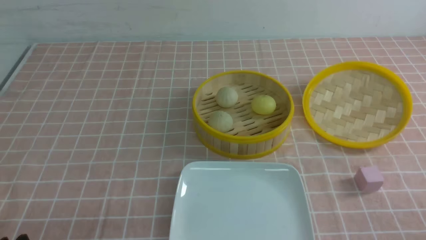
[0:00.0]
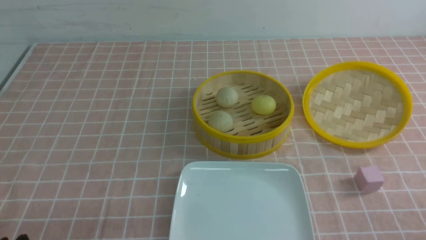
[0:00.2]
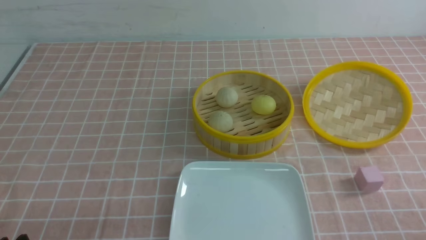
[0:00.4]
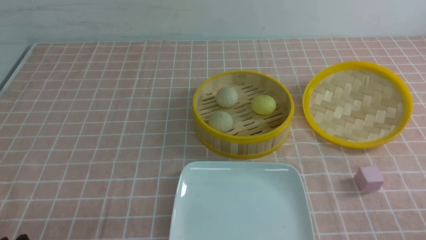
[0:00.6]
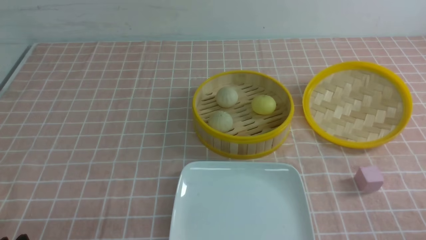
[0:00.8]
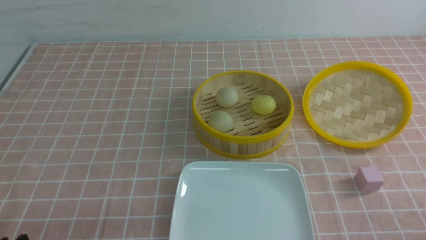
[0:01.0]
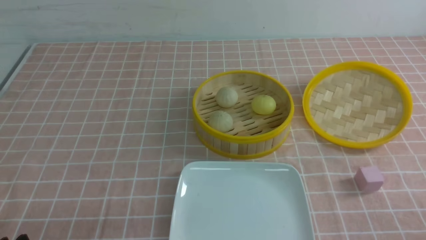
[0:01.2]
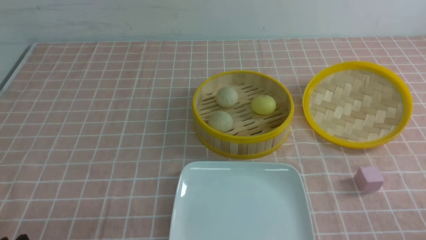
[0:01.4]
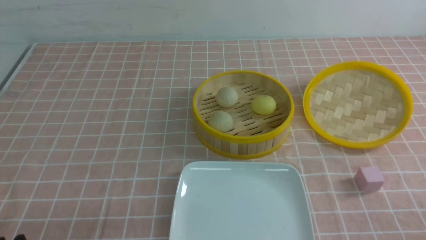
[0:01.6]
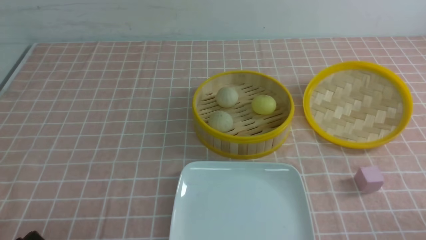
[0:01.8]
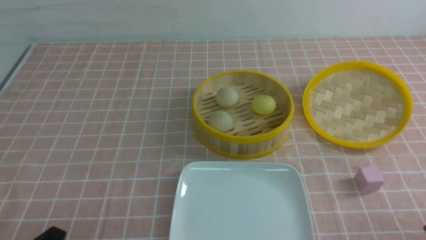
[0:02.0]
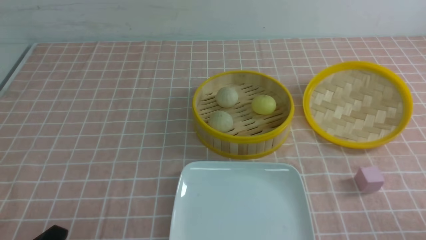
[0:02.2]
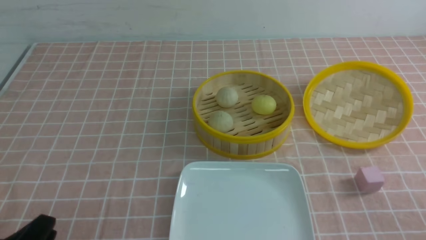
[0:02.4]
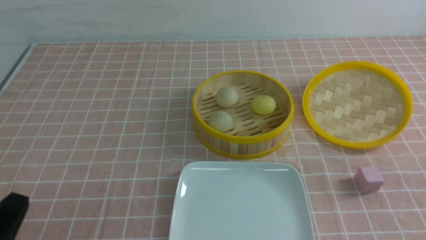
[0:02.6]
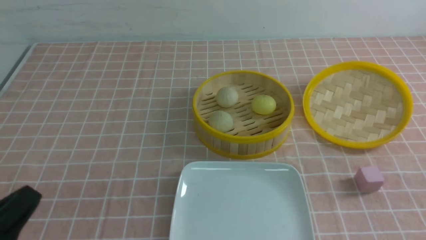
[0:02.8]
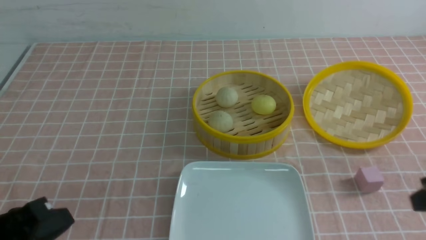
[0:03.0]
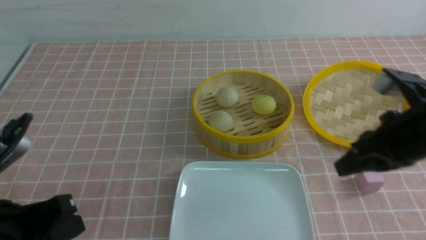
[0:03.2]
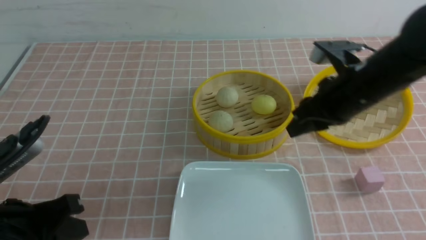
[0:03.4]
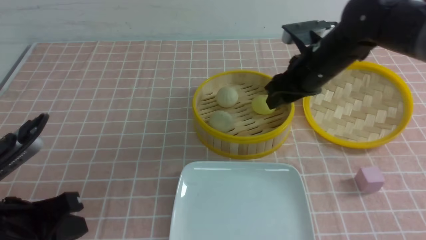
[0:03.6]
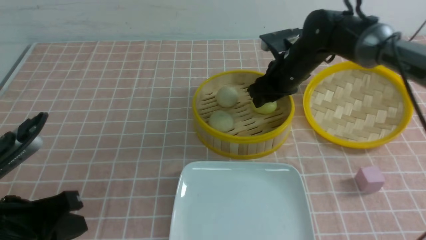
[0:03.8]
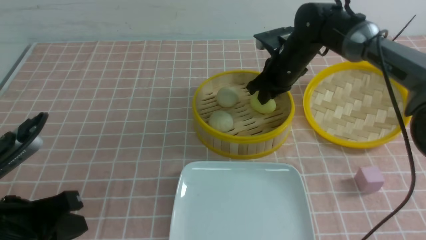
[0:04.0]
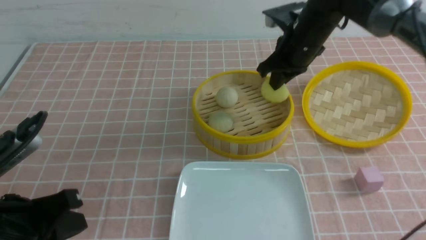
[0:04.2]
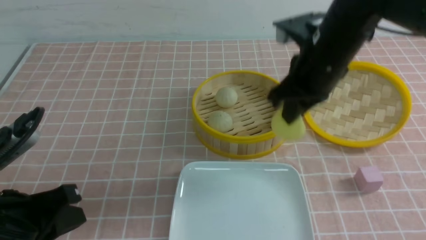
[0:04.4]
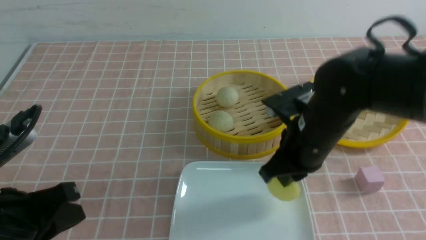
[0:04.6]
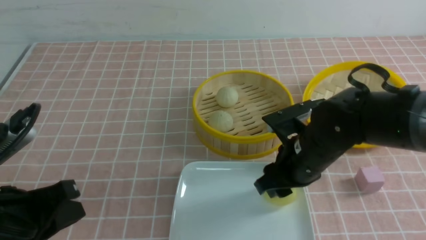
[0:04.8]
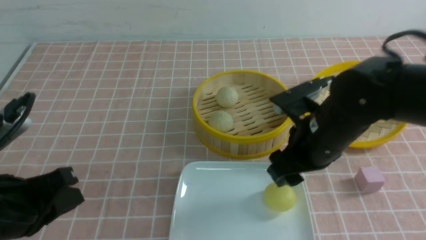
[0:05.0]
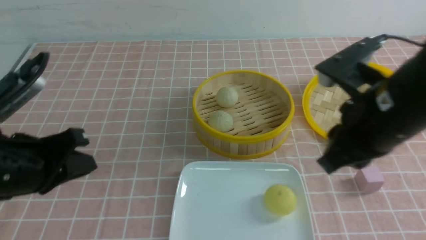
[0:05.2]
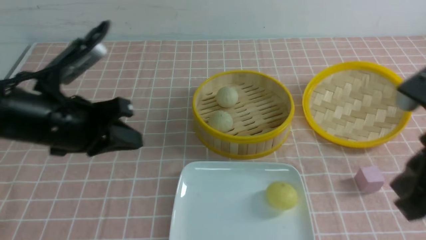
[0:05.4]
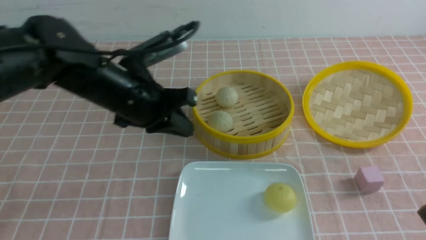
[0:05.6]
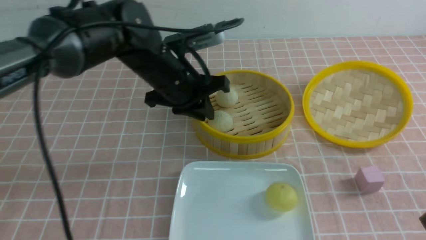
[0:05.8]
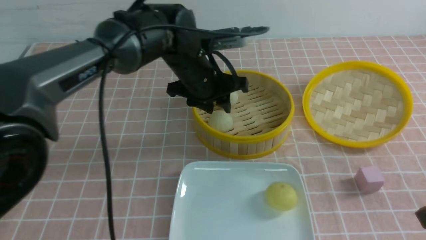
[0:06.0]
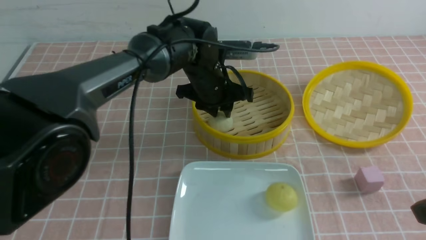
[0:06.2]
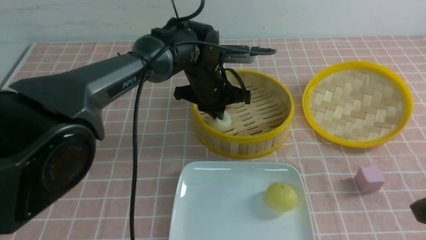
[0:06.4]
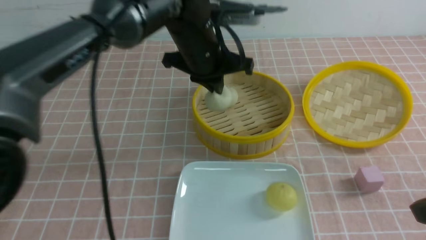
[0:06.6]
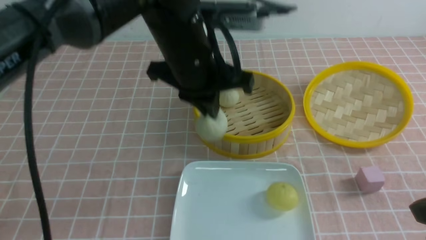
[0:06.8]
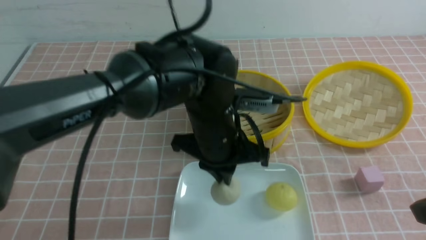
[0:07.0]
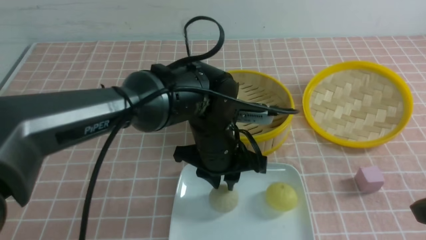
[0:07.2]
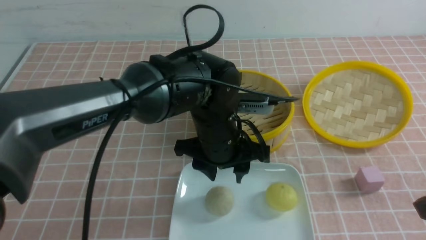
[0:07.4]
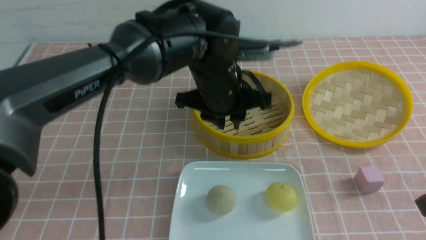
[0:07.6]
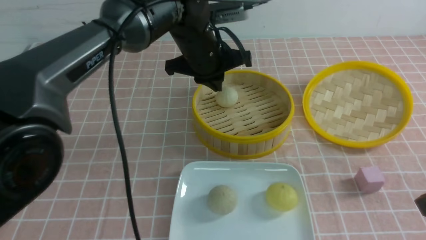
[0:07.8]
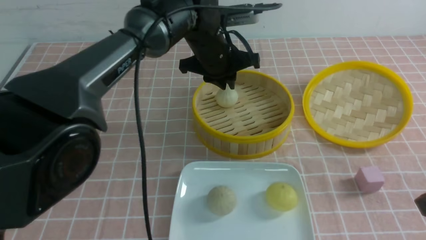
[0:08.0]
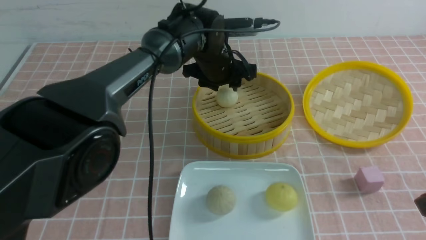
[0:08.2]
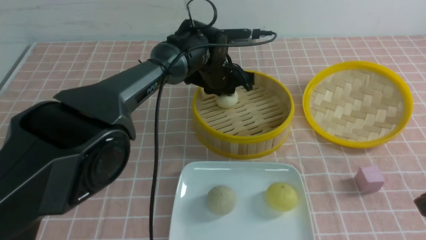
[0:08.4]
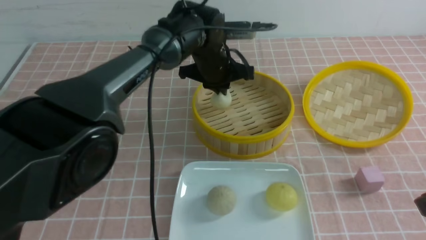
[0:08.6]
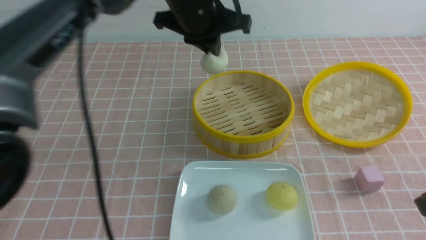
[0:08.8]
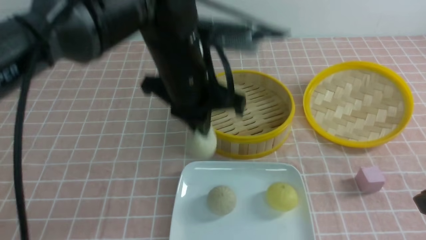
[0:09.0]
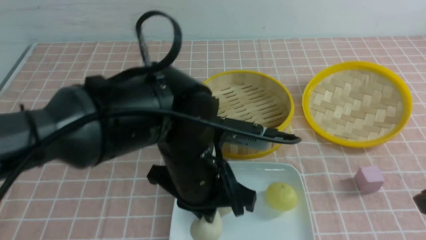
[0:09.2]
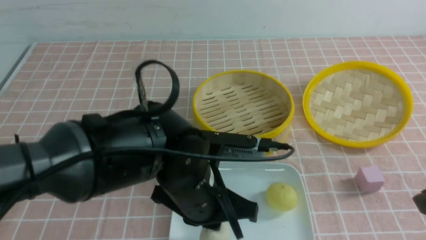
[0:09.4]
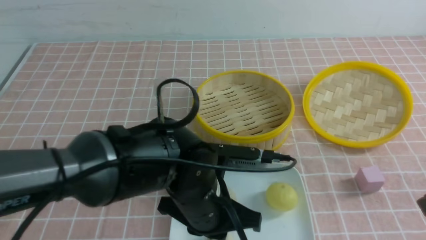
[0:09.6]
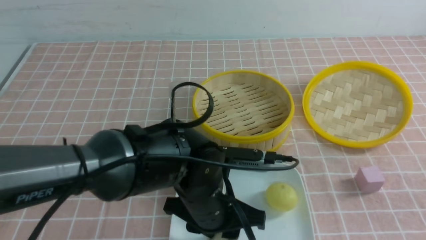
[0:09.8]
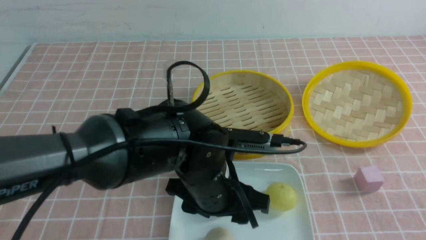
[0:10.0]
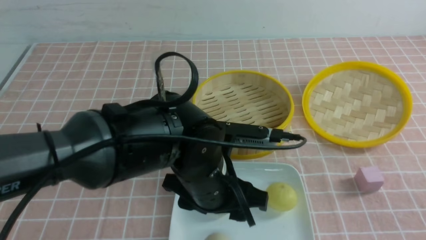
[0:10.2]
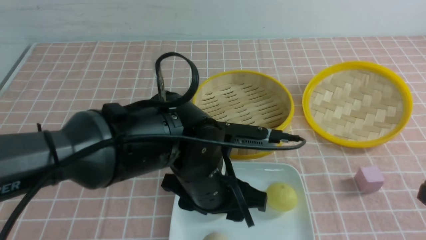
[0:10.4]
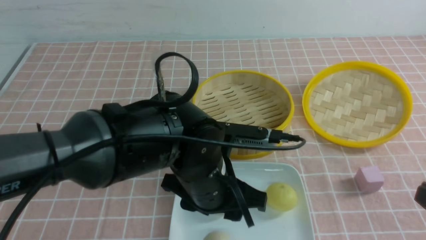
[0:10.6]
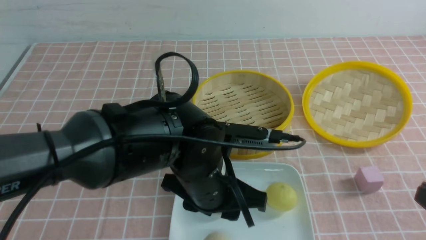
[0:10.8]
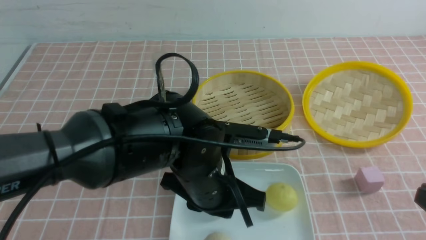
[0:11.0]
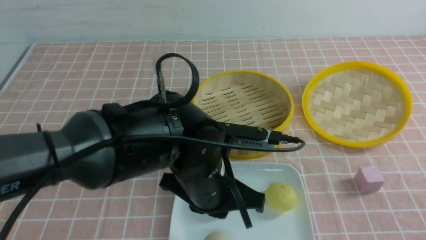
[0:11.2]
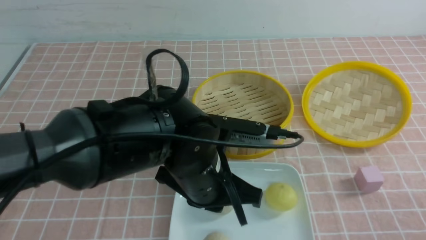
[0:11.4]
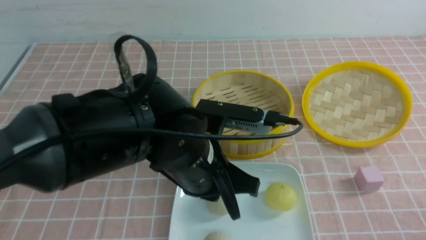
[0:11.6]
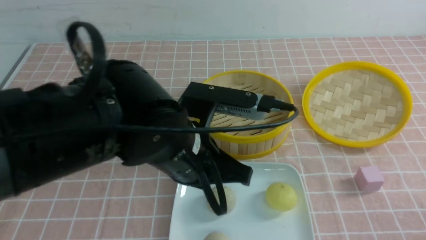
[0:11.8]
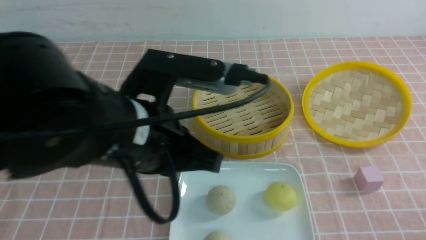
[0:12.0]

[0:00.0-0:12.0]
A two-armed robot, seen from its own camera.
Step, 0.0 to 3.8 s: use the right arm to grab the steamed stuffed bun that is closest to it.
Step, 4.2 to 5.0 s: use the right arm to put the steamed stuffed bun into the plate.
Step, 5.2 to 6.4 s: use the left arm to grab the steamed stuffed bun that is closest to it.
Step, 6.6 to 7.2 s: use the left arm to put the steamed stuffed bun into the plate.
Step, 7.4 to 8.4 s: use the left arm to grab the steamed stuffed bun that is closest to it.
Step, 8.6 to 10.0 s: use the left arm to put the steamed stuffed bun into the plate.
1.6 to 3.0 s: The left gripper heads upward, covering approximately 10 cm, and closes its fingers.
3.0 to 4.4 s: The right gripper heads forward and to the left, covering about 25 cm, and opens and closes again.
4.4 to 6.0 s: The right gripper is displaced backward and to the right by some 25 cm, and opens and closes again, while the left gripper is displaced forward and to the right by roughly 35 cm, and opens.
6.0 to 7.6 s: The left gripper closes, then opens again.
7.6 to 9.0 s: The left gripper reaches about 10 cm forward, then returns, and closes.
9.0 to 10.4 s: The left gripper heads downward and backward, covering some 10 cm, and opens up. Meanwhile the right gripper heads backward, covering approximately 5 cm.
10.4 to 12.0 s: The left gripper goes some 15 cm upward and to the left, and closes; the right gripper travels downward by approximately 10 cm.

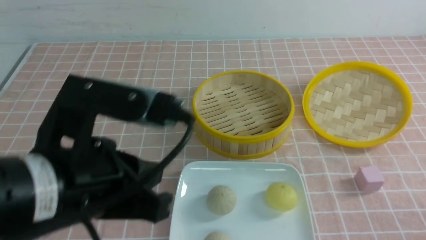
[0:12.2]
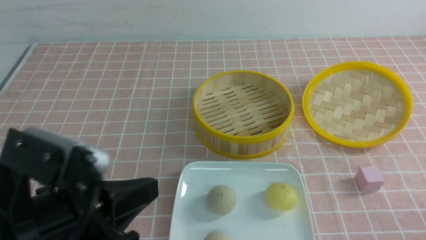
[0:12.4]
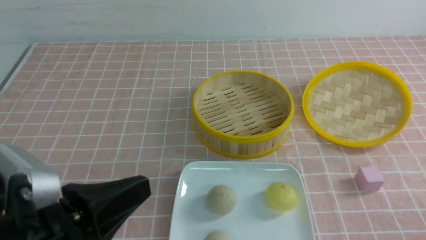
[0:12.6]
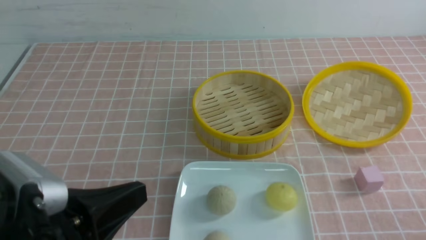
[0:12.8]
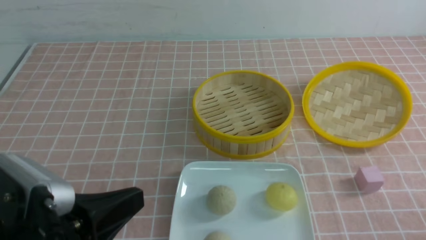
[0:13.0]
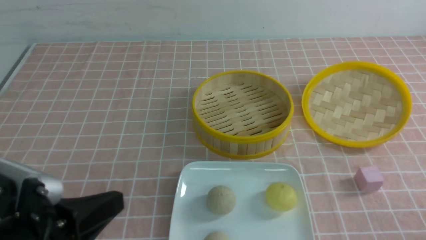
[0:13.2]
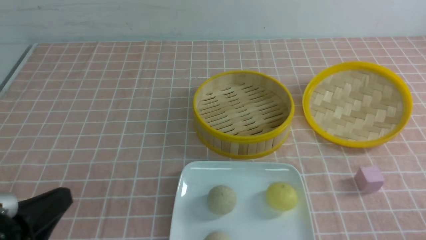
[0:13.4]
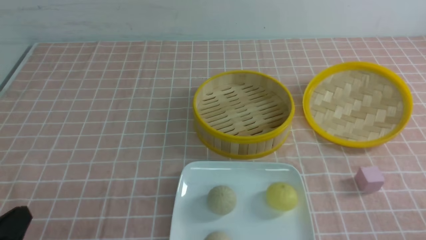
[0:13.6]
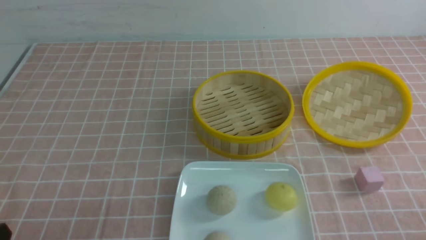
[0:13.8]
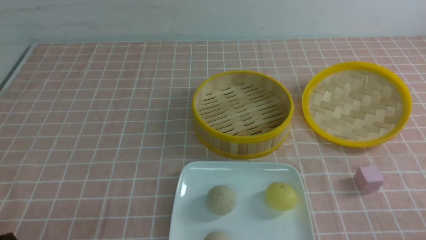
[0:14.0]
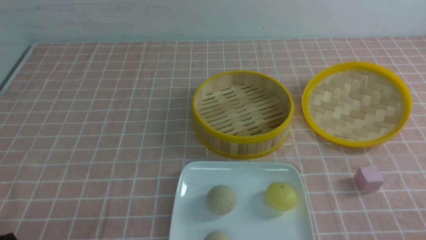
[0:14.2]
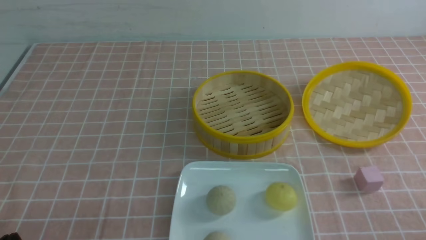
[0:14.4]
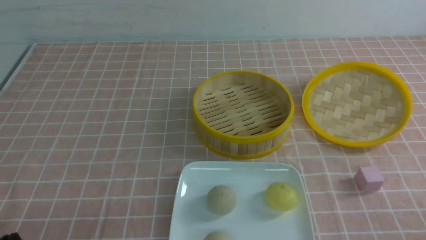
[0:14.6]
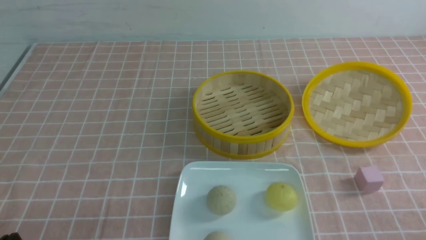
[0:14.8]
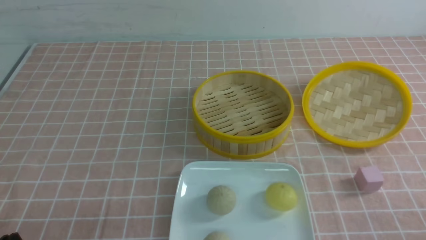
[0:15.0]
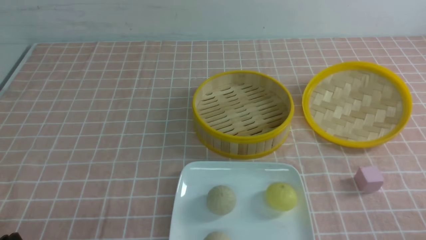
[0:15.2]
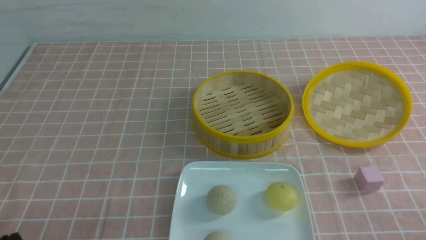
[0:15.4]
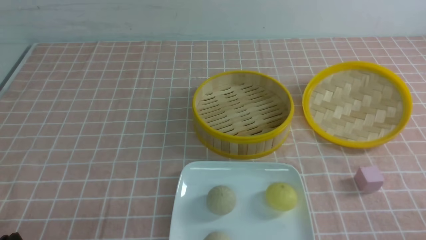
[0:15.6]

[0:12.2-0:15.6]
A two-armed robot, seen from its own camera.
12.2 to 13.8 s: The left gripper travels to the left, downward and backward by roughly 20 cm.

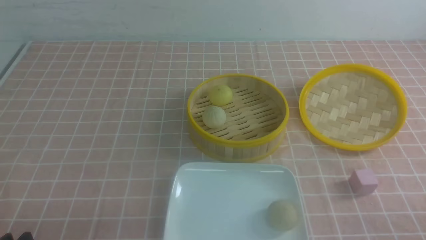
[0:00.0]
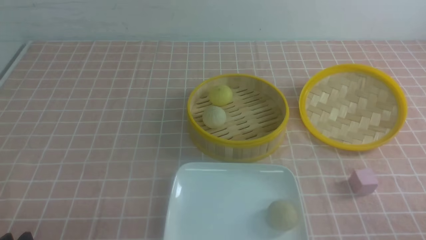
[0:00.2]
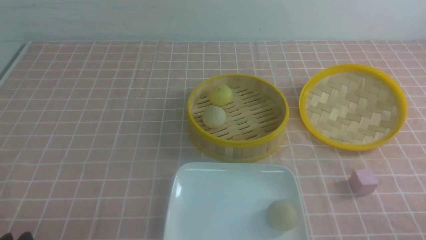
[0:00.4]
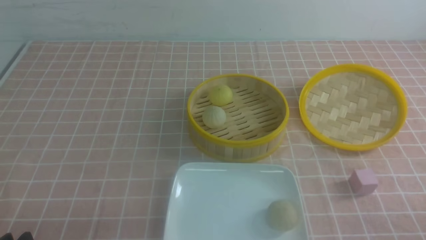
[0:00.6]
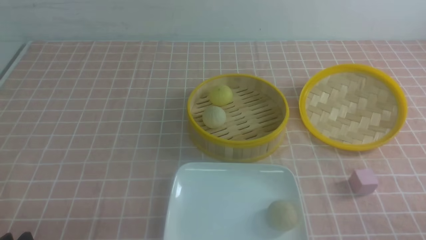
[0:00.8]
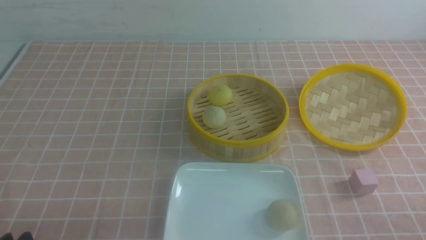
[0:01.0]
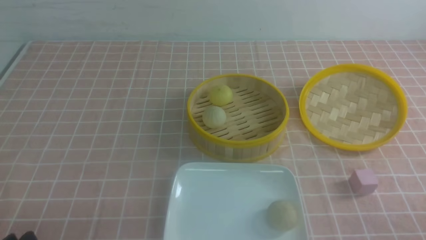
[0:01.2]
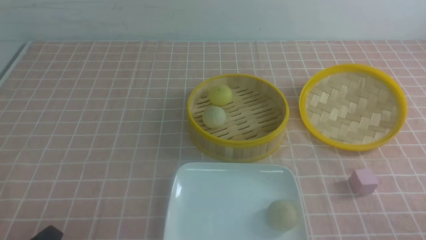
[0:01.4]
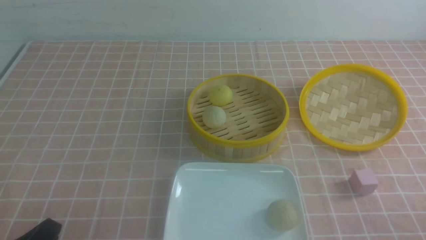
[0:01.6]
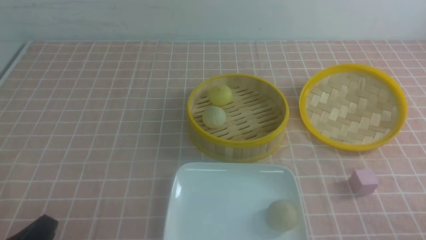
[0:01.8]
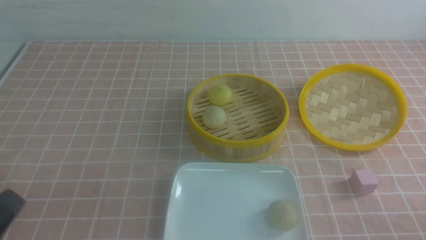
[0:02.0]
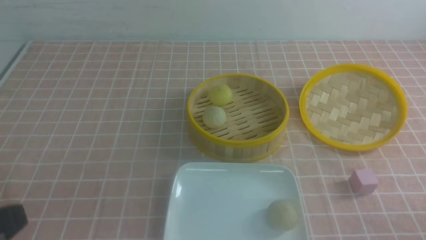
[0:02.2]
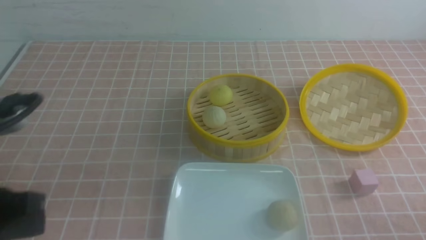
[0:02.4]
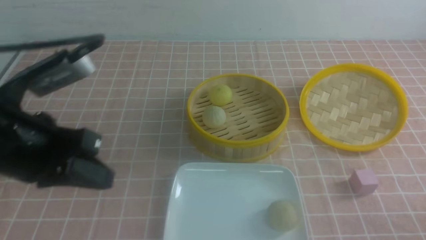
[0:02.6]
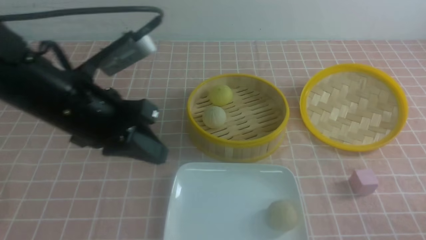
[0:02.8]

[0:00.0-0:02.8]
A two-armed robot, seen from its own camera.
1.4 to 2.8 s: The left gripper heads forward, upward and to the right, covering about 25 cm, and closes up.
